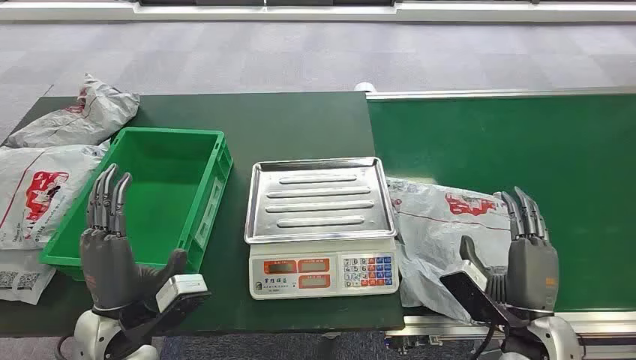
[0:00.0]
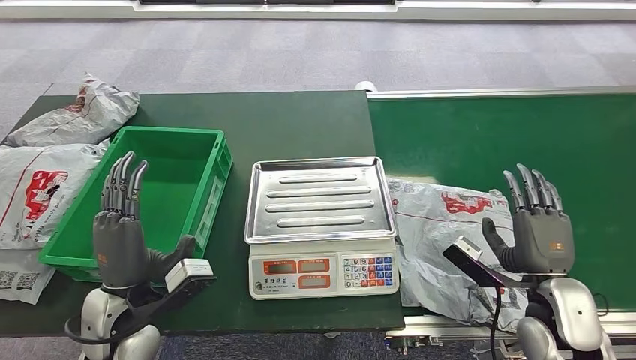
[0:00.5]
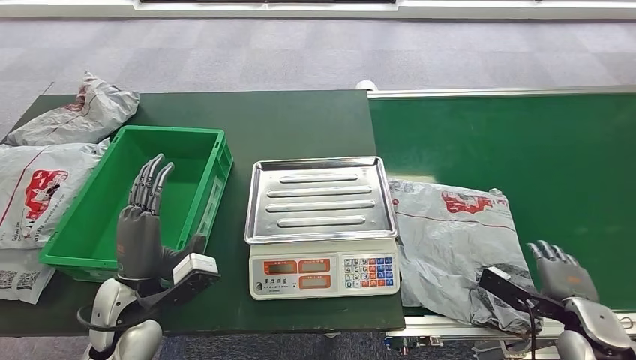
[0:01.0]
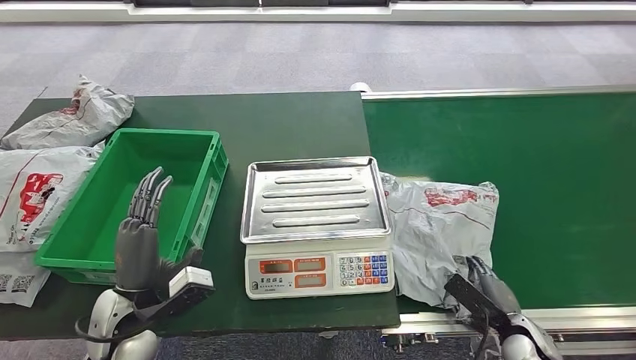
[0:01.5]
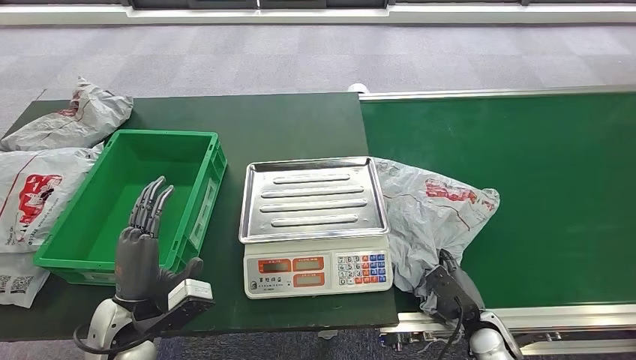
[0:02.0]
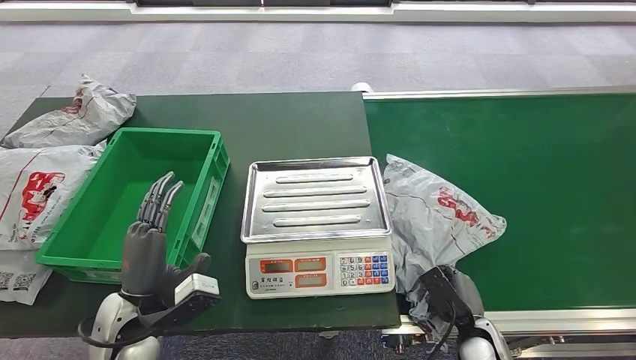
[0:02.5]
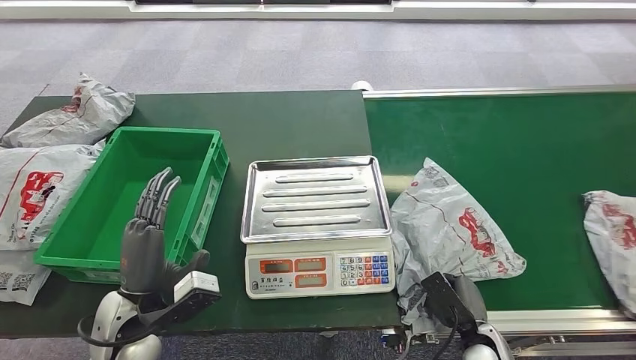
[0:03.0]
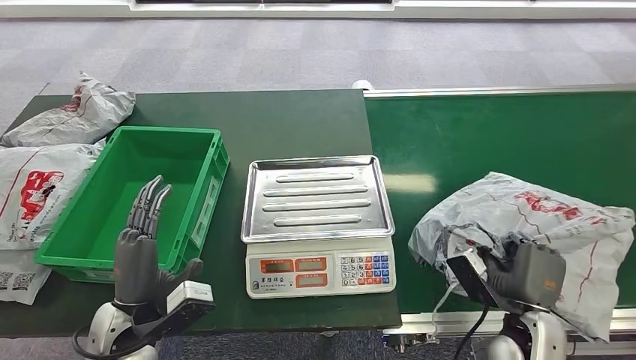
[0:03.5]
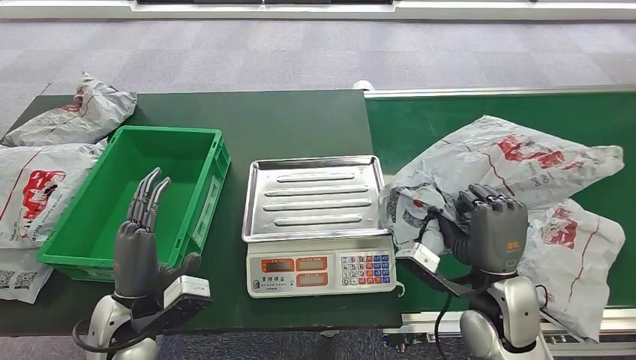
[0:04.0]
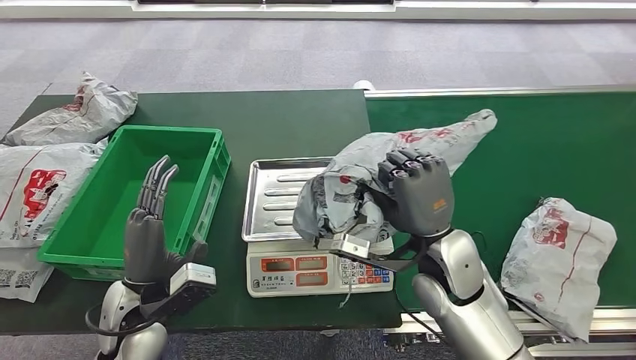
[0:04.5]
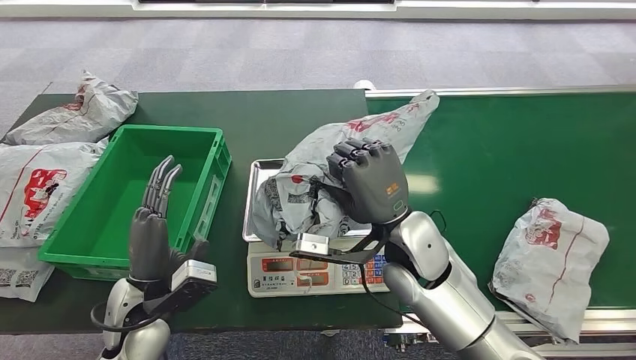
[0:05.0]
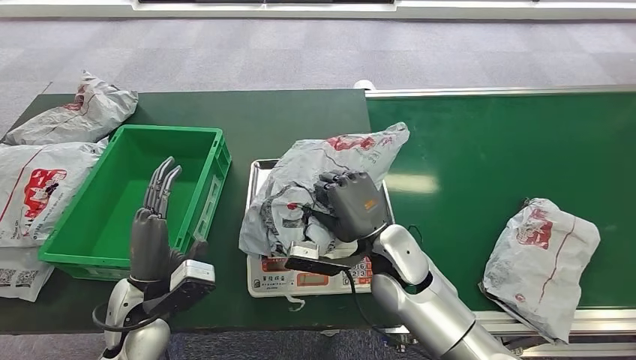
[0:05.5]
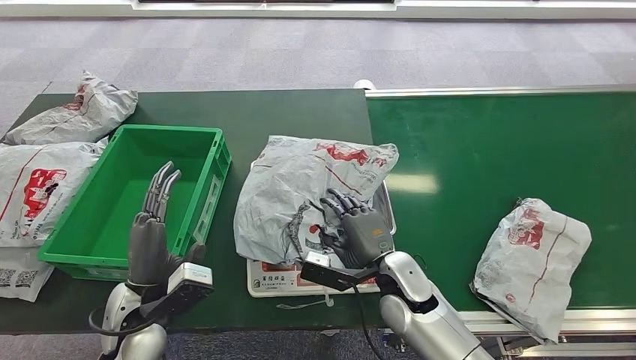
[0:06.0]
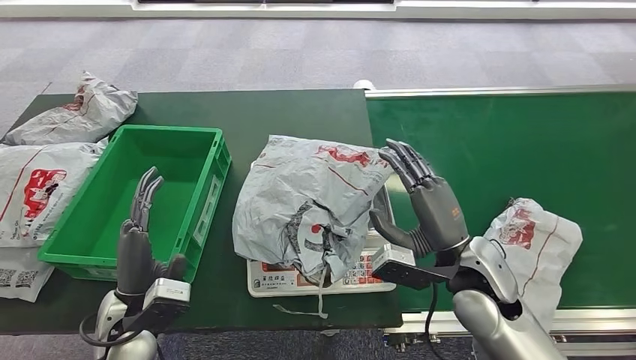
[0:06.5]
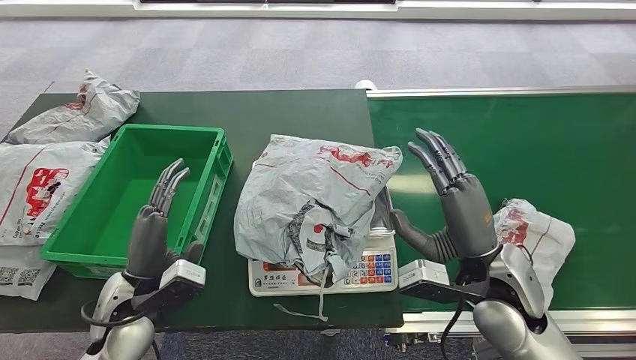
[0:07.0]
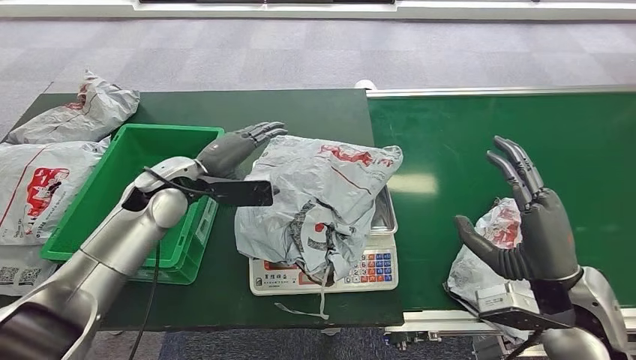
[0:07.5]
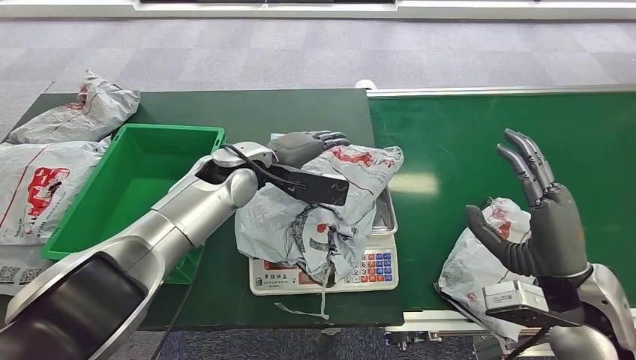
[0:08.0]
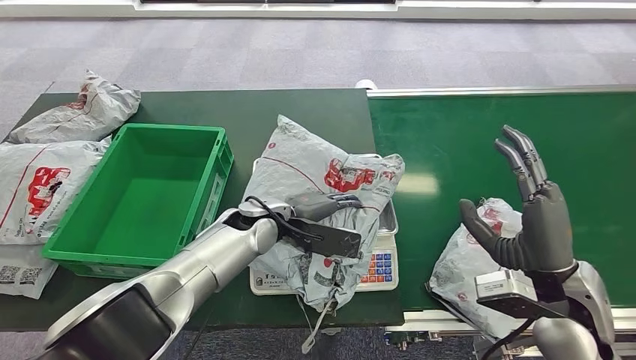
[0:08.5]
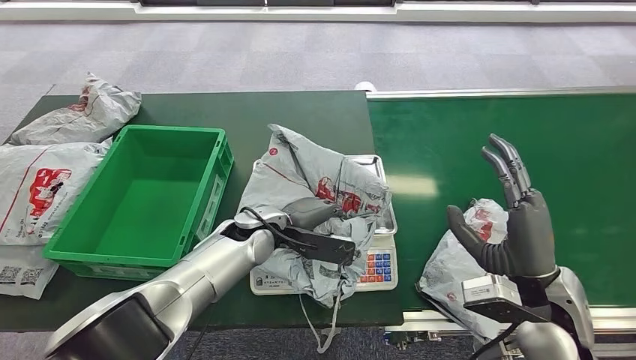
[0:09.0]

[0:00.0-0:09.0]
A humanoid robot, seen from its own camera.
Step, 0:00.0 to 0:04.0: Pick up the package from the conveyor belt.
Step, 0:04.5 to 0:06.5: Place the package onto the inbound machine.

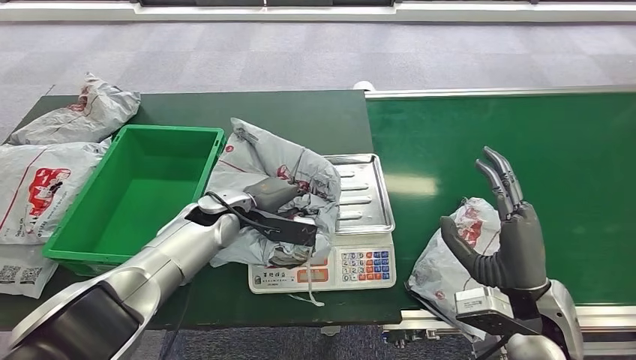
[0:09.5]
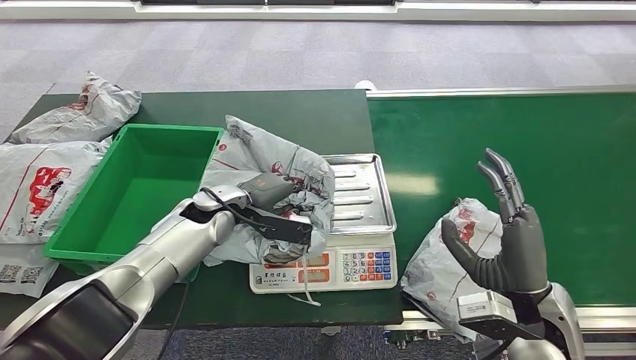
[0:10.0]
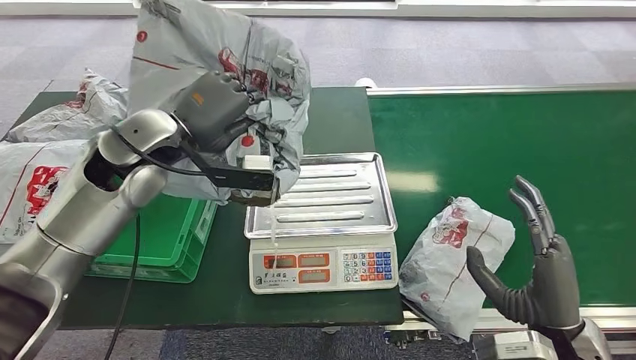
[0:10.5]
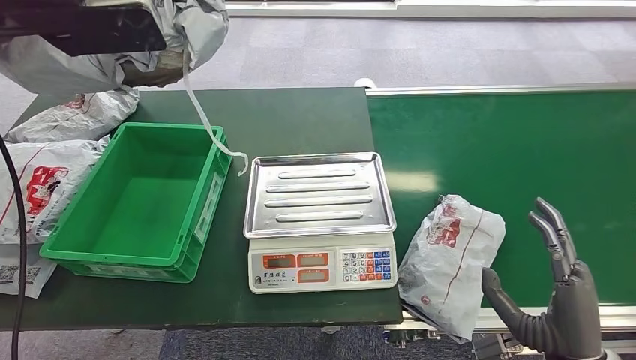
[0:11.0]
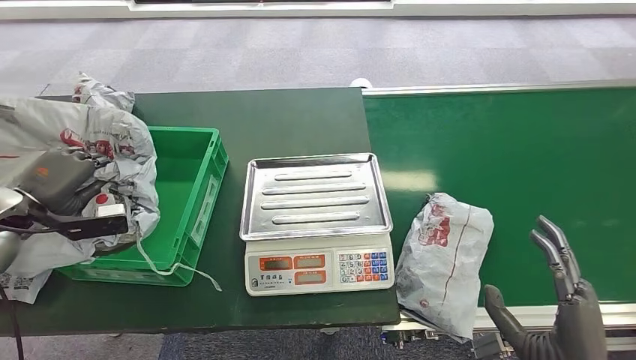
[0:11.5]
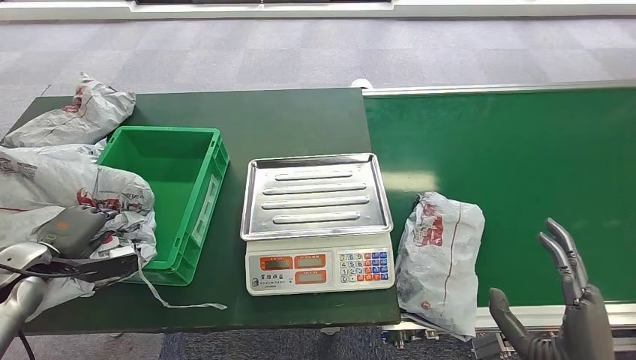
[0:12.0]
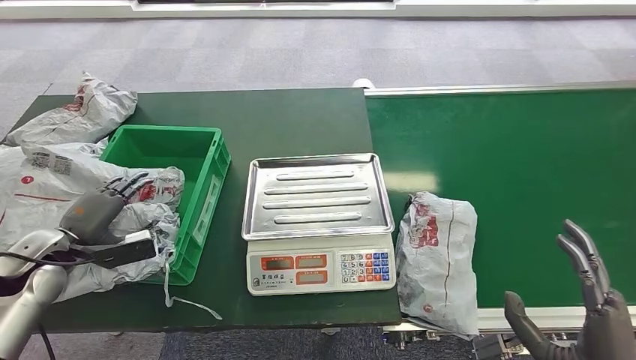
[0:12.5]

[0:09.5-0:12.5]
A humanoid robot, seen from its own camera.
Step, 0:11.0 to 0:12.5: Place the package into the parcel locker.

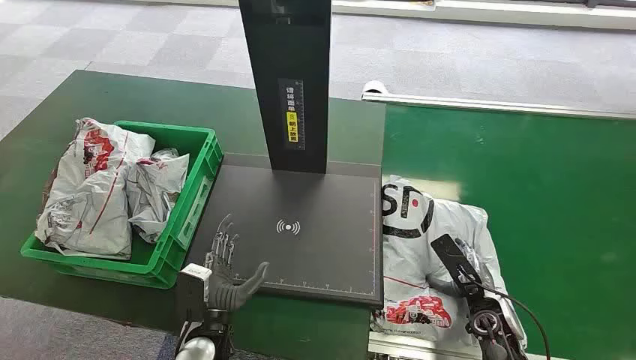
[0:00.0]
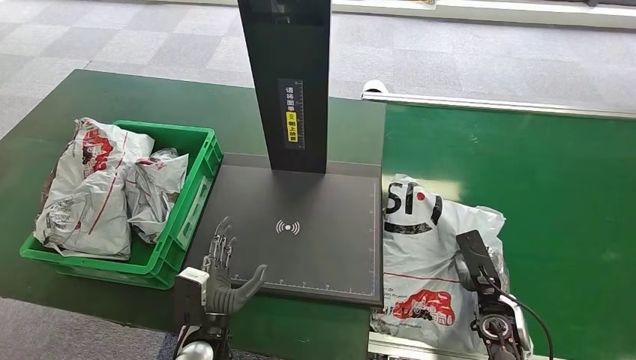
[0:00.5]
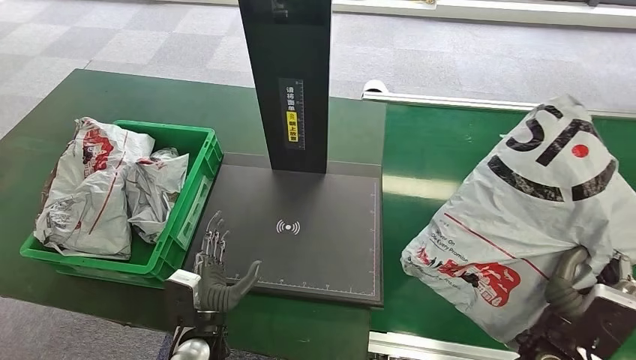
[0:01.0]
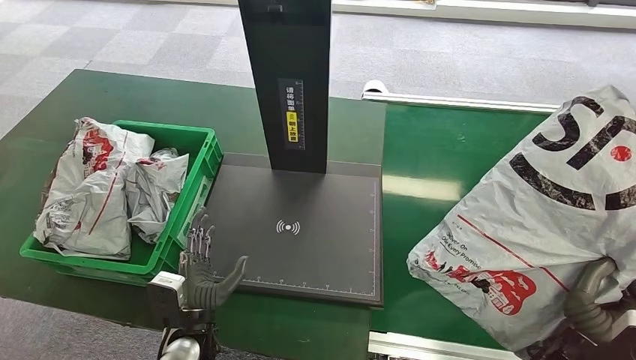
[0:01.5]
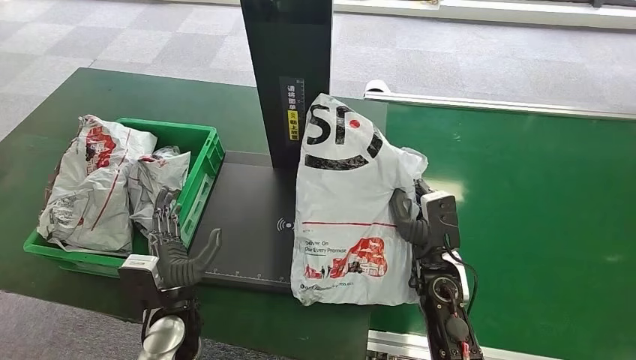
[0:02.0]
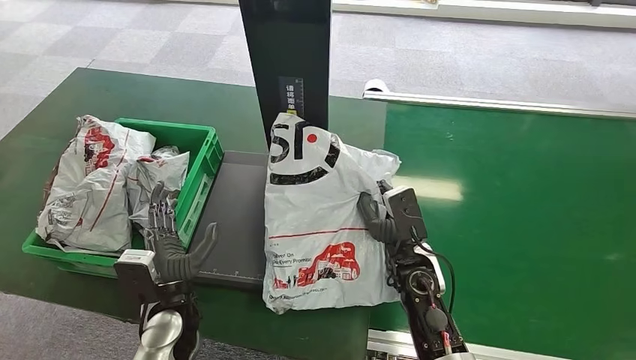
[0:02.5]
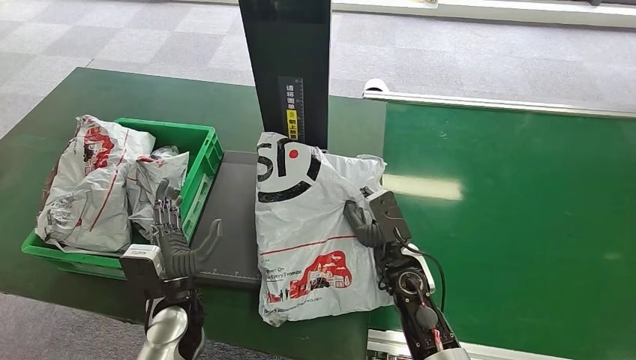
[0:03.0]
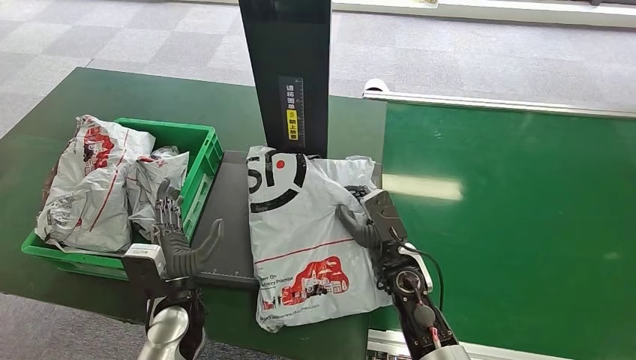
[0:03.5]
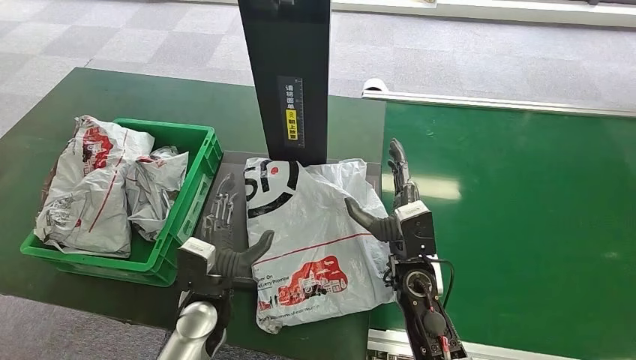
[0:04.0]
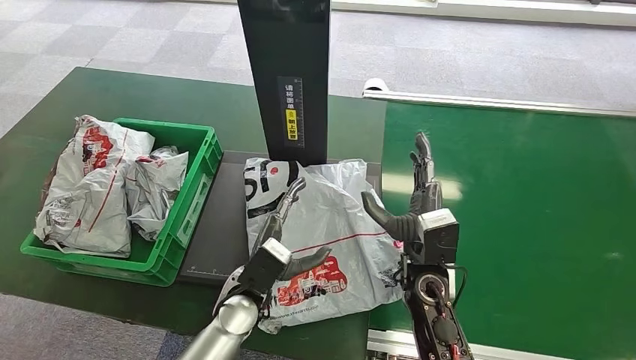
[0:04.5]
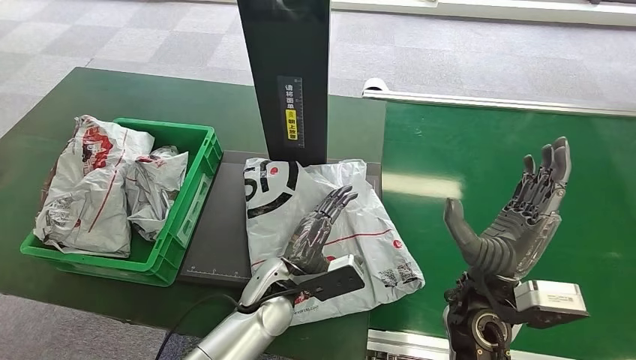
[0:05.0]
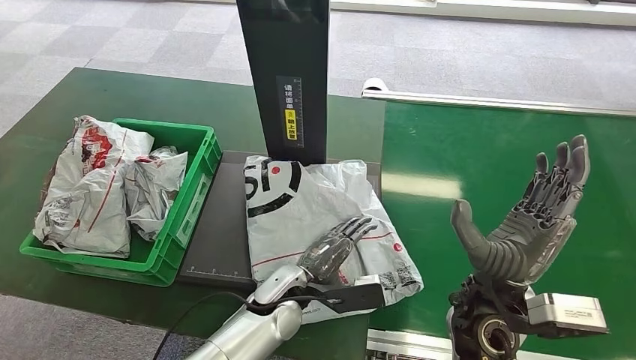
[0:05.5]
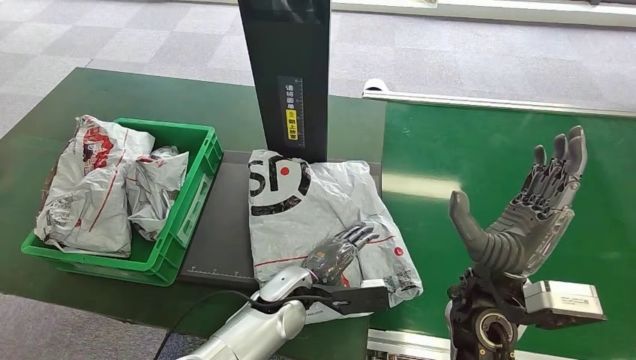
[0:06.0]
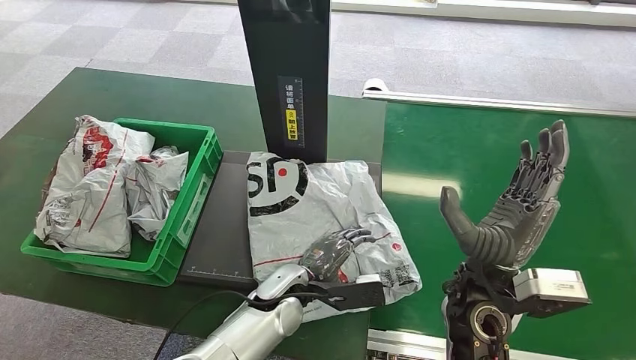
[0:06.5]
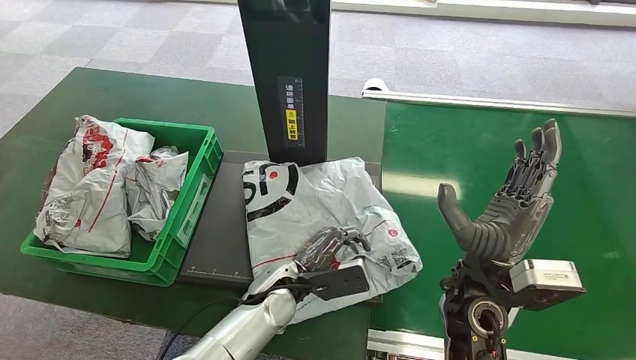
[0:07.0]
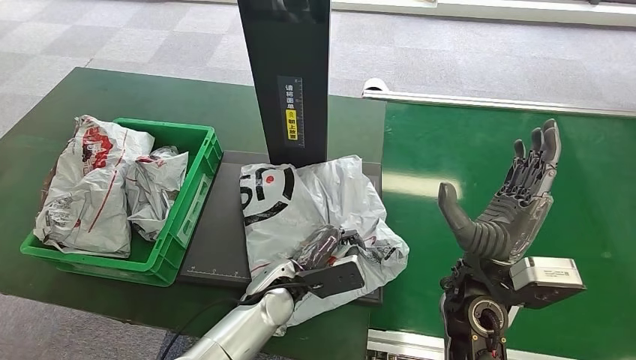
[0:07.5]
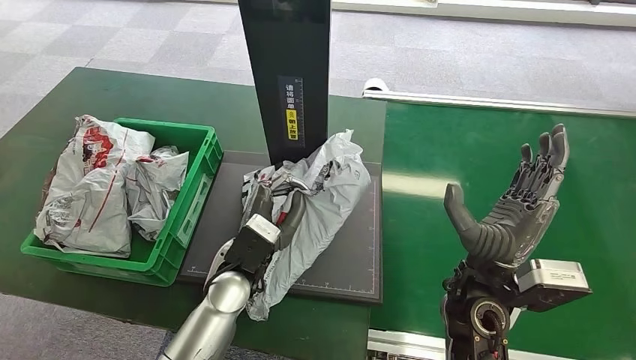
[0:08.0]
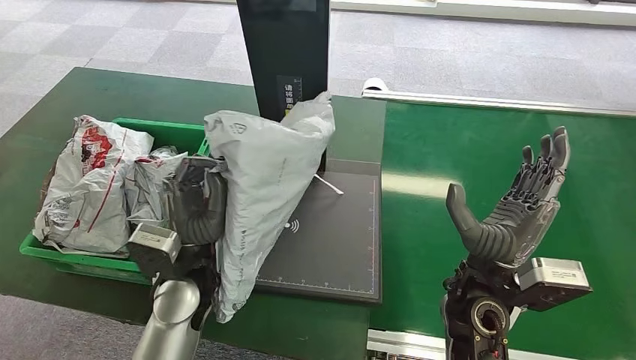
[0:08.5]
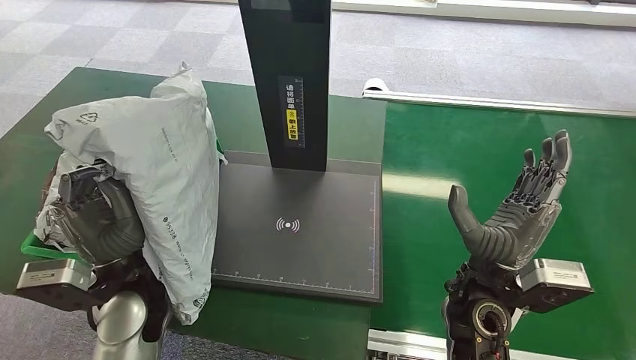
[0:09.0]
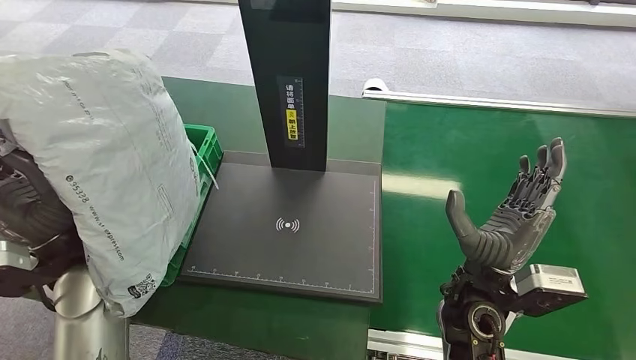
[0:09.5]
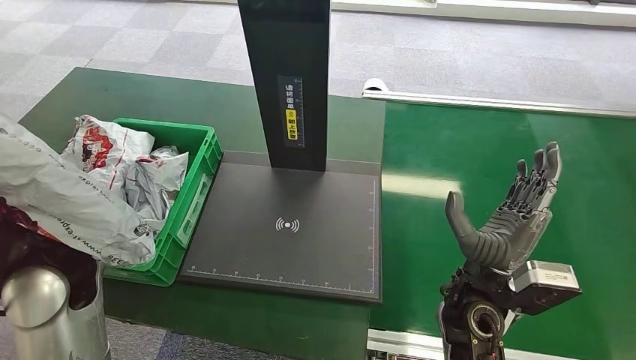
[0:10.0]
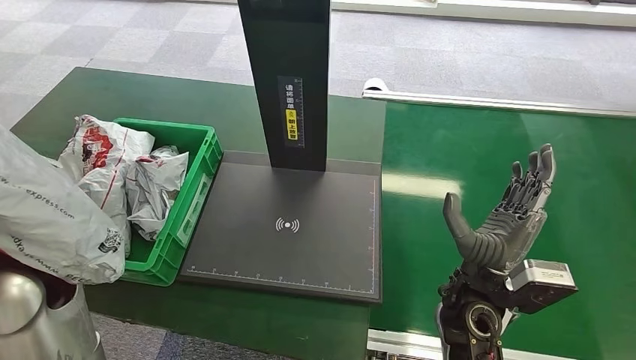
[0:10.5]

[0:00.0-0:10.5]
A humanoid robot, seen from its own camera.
Step, 0:00.0 to 0:01.5: Pick up the package from the conveyor belt.
Step, 0:02.0 to 0:04.0: Place the package onto the inbound machine.
Step, 0:04.5 to 0:08.5: Pick up the package from the inbound machine.
0:04.0 to 0:06.5: The right hand moves upward, some 10 cm, while the left hand travels to the right by some 10 cm.
